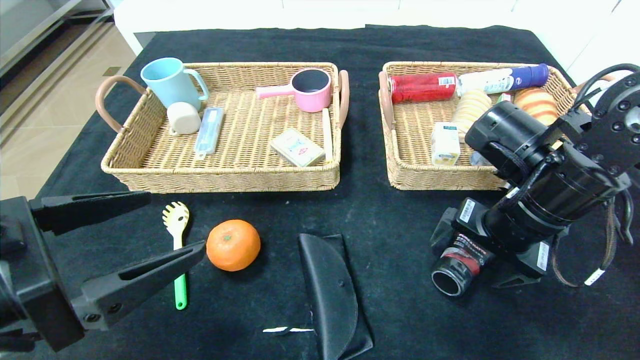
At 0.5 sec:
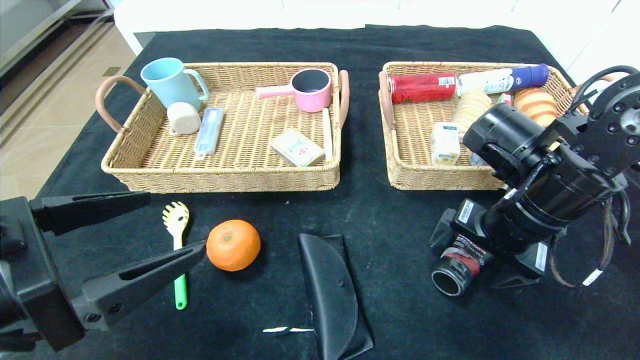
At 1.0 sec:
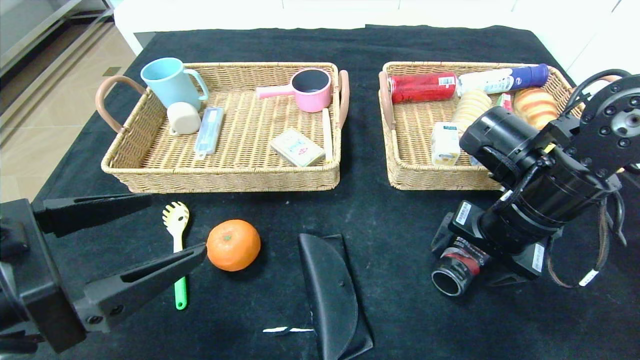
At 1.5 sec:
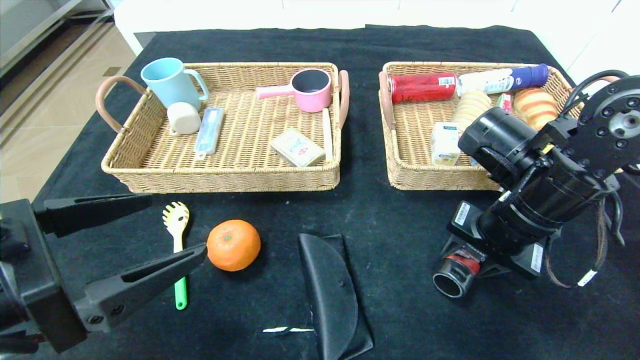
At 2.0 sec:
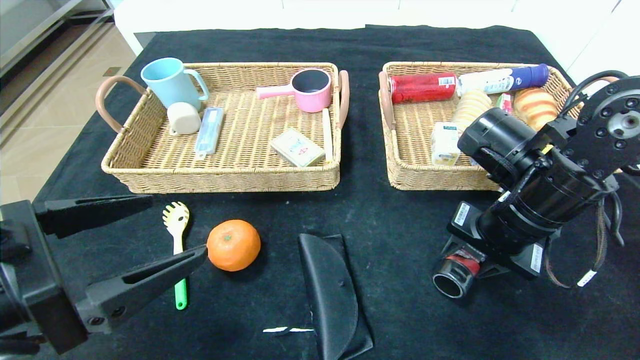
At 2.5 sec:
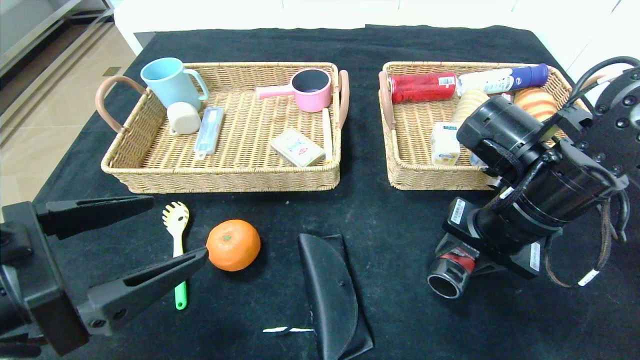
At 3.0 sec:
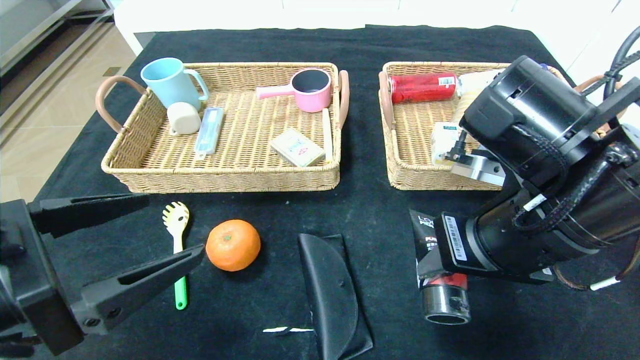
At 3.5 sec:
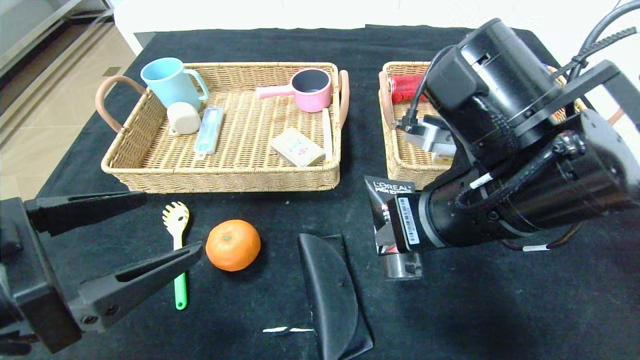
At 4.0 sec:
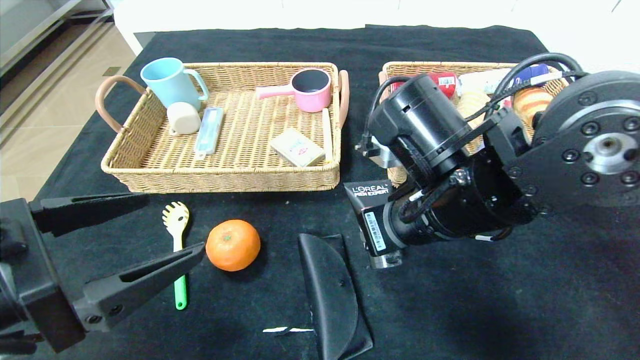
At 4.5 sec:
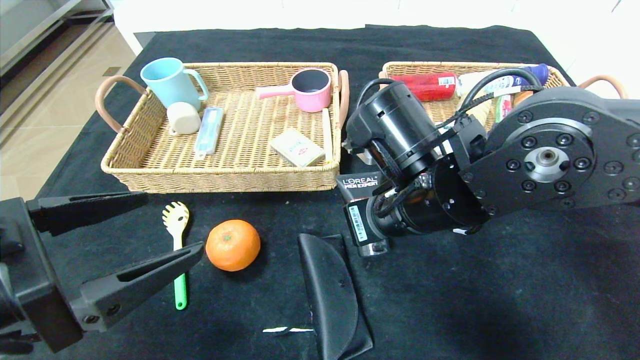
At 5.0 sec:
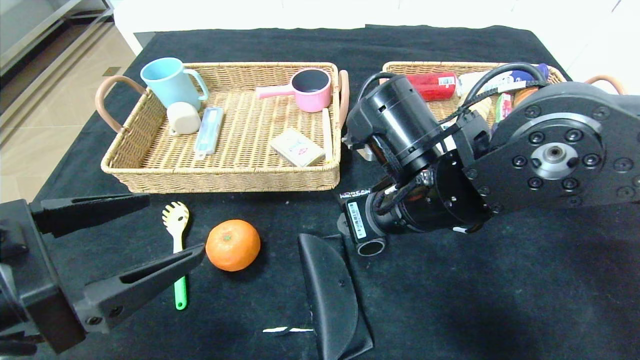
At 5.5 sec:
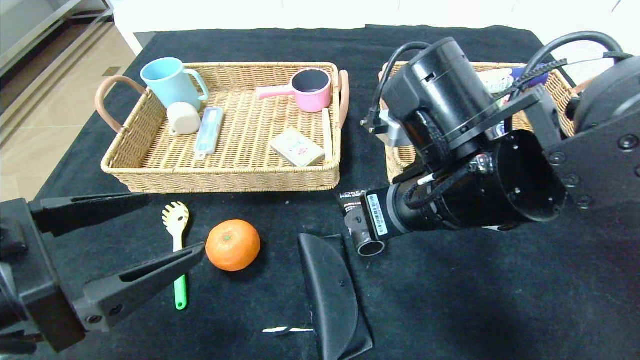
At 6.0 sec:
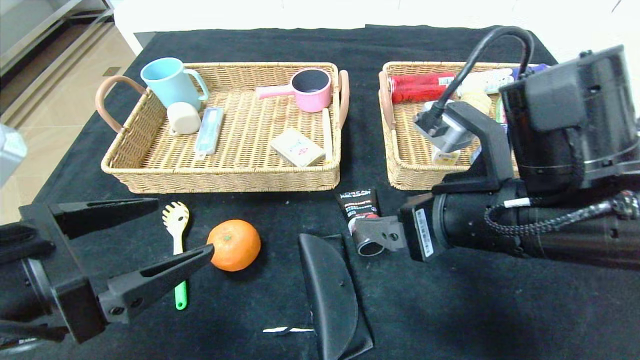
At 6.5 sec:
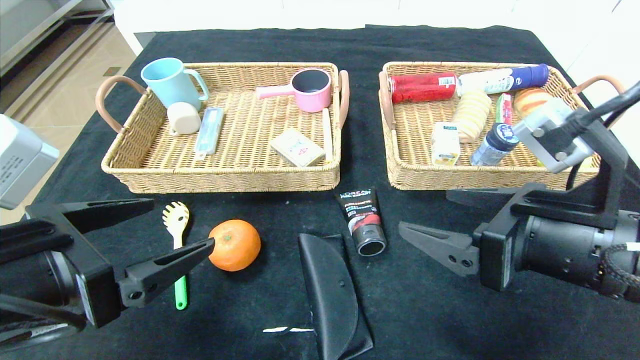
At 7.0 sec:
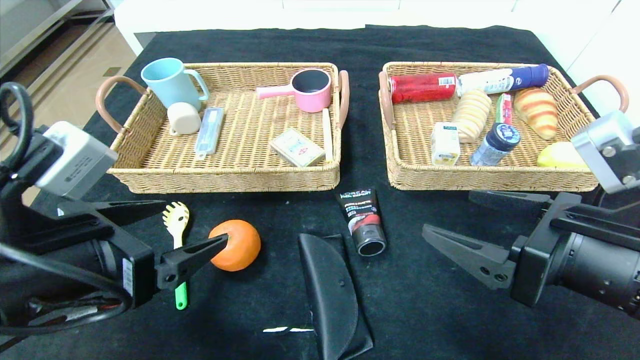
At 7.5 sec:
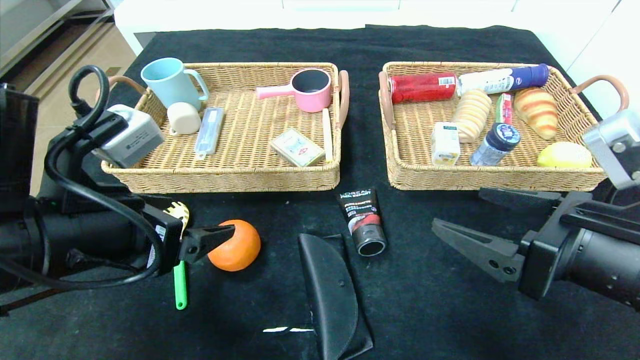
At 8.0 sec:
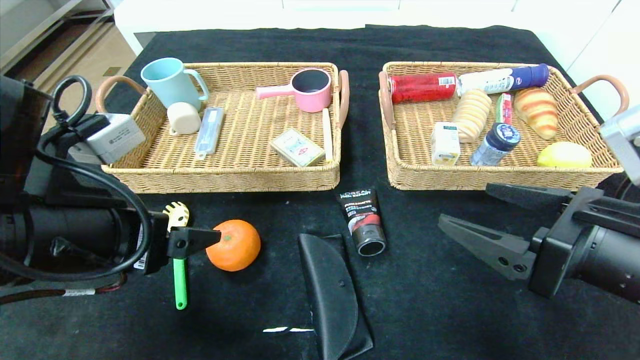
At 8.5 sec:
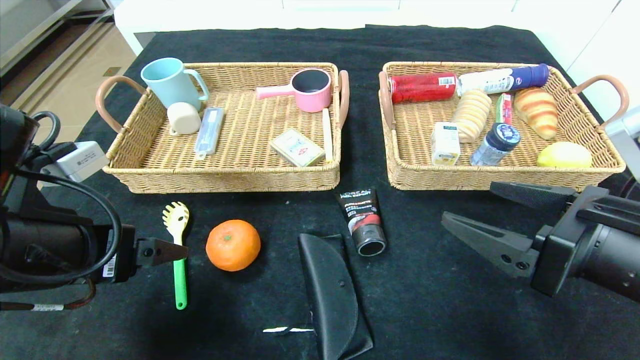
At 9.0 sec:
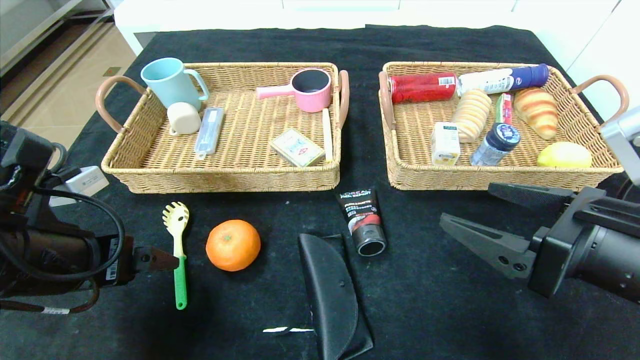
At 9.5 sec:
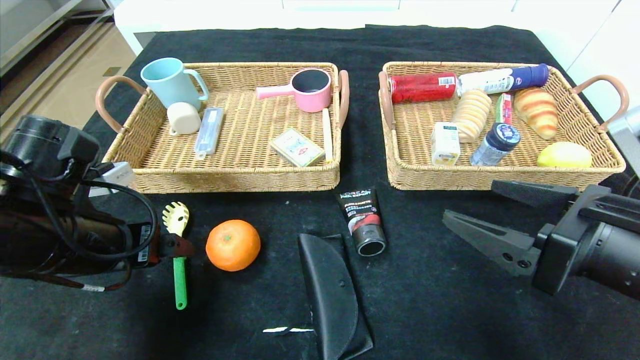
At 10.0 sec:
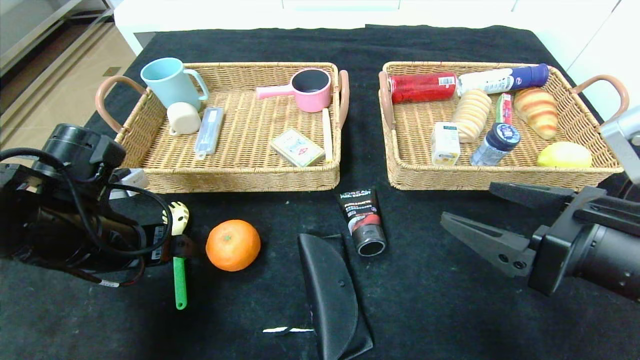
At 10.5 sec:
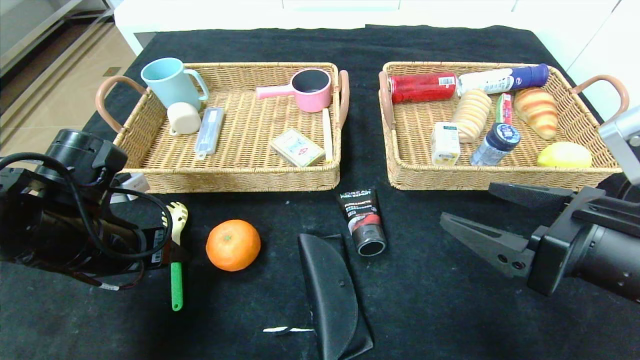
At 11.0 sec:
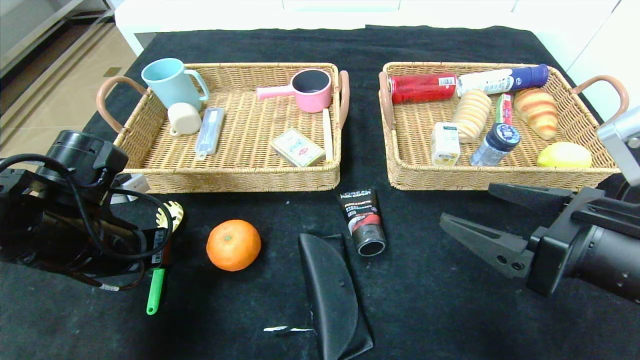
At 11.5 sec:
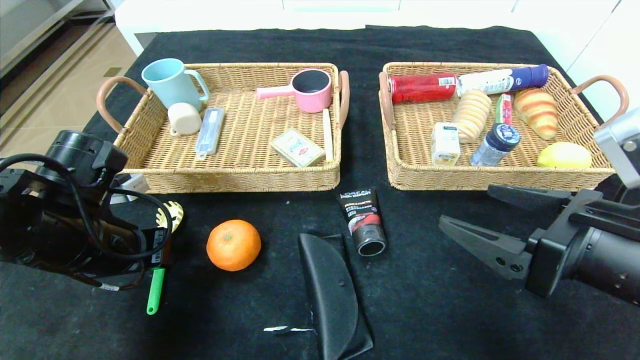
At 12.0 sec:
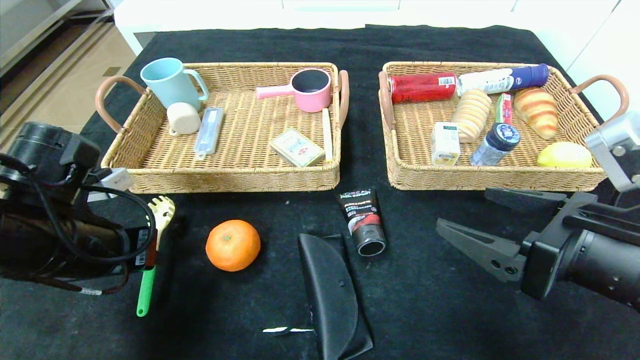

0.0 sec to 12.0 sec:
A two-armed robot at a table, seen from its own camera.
Step, 0.0 sec to 6.5 sec: Place the soft cleanser in the center of the table.
0.0 sec to 2.0 sec: The right gripper closes its fingers.
2.0 sec to 4.0 sec: The right gripper is displaced to the left by approximately 10 cm.
4.0 sec to 6.0 sec: The right gripper changes place by approximately 5 cm, and opens.
6.0 sec to 8.0 sec: The right gripper heads to the right, covering approximately 10 cm. Meanwhile the left gripper changes place by about 5 cm.
8.0 sec to 10.0 sec: The left gripper is displaced forward, downward and to the left by approximately 10 cm.
10.0 sec to 12.0 sec: The left gripper closes its fingers.

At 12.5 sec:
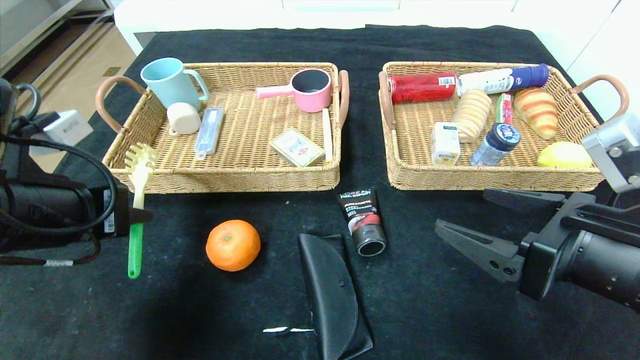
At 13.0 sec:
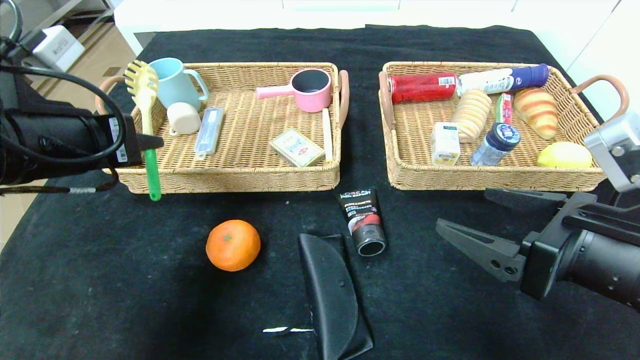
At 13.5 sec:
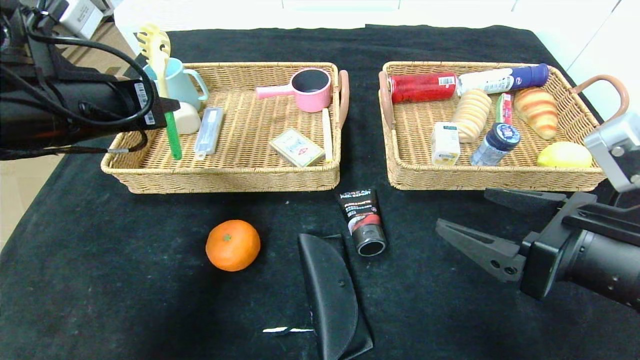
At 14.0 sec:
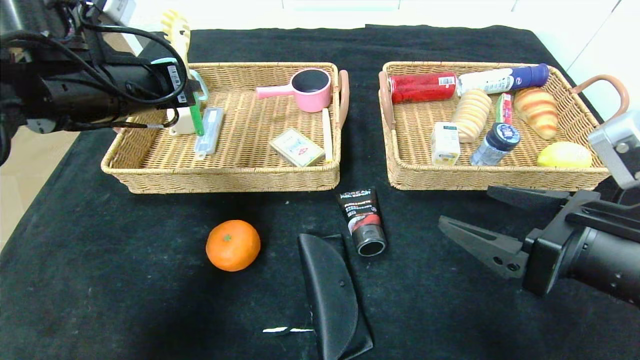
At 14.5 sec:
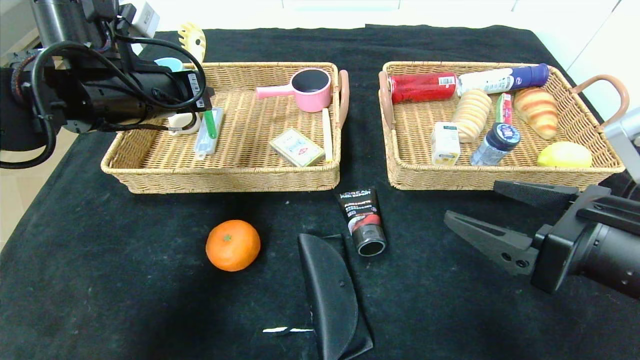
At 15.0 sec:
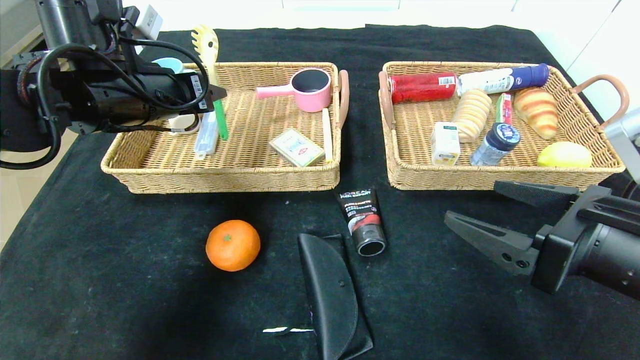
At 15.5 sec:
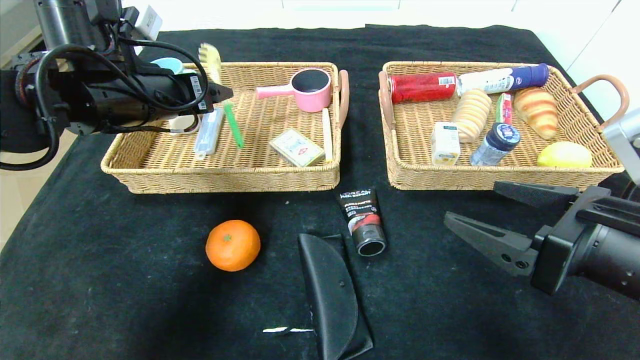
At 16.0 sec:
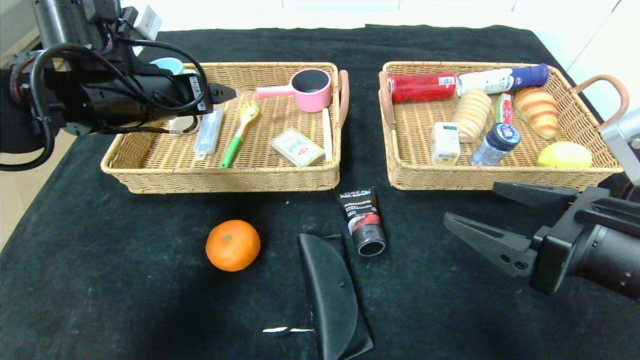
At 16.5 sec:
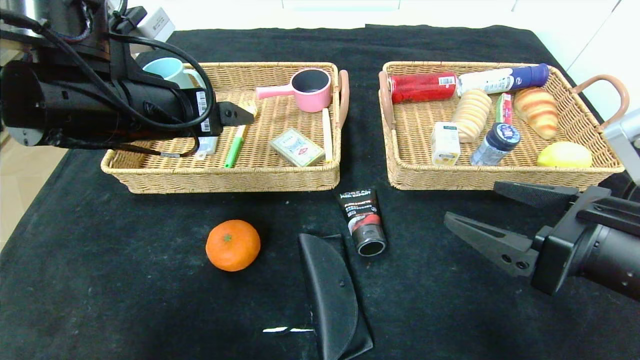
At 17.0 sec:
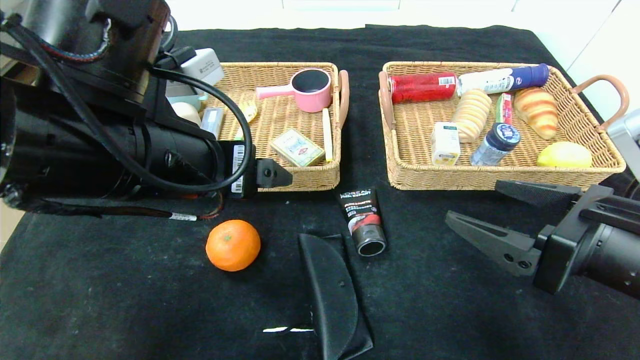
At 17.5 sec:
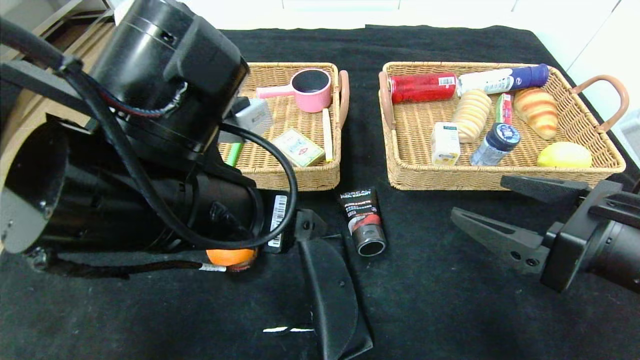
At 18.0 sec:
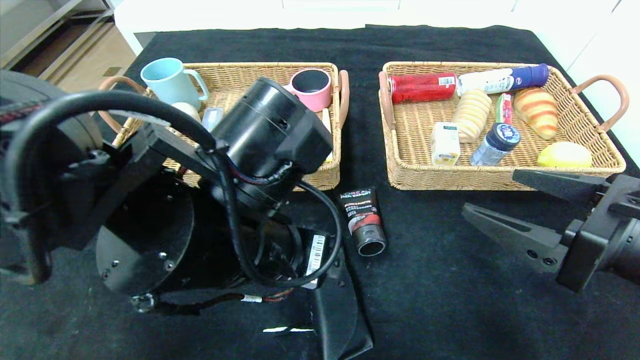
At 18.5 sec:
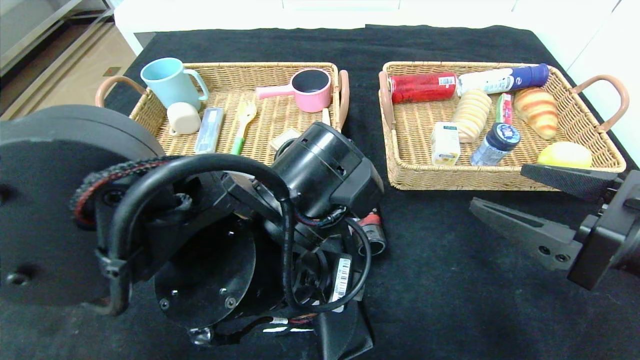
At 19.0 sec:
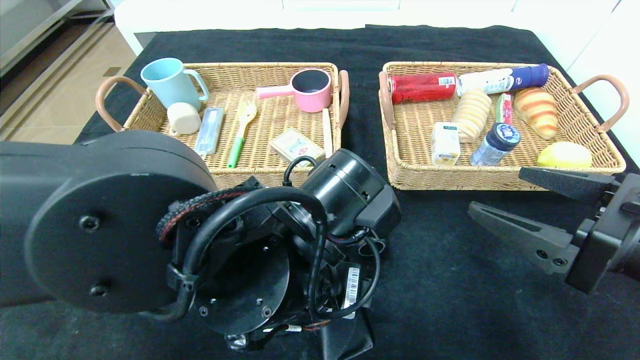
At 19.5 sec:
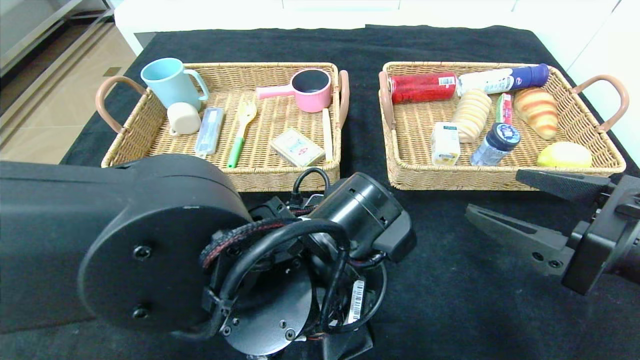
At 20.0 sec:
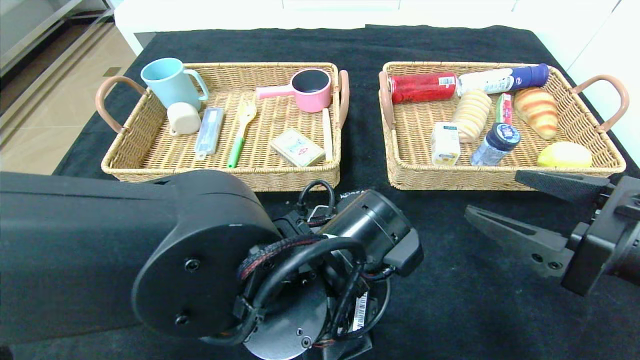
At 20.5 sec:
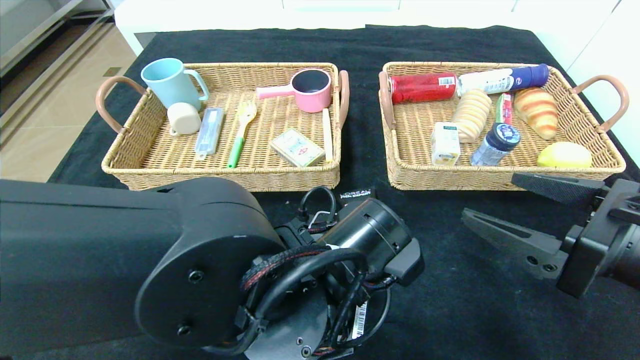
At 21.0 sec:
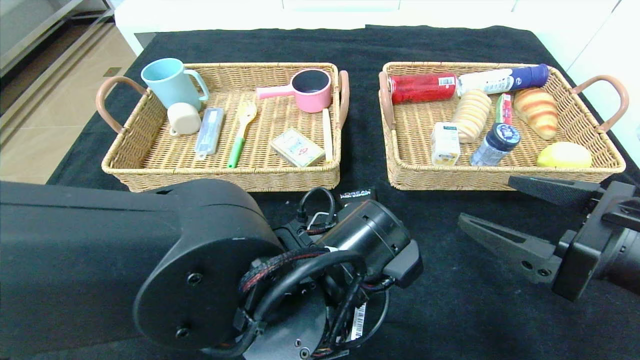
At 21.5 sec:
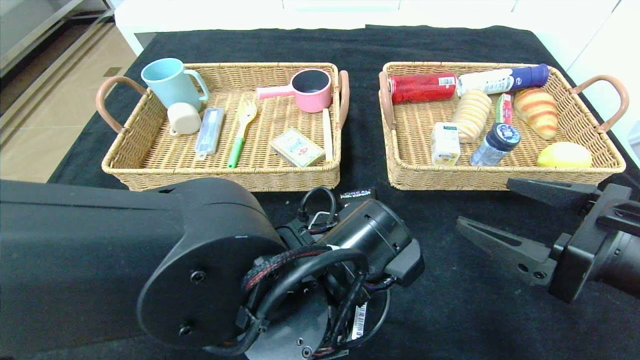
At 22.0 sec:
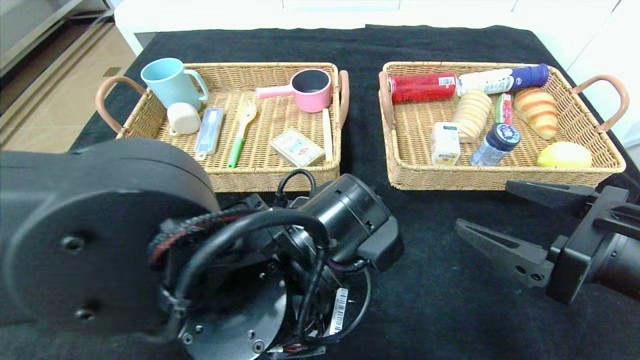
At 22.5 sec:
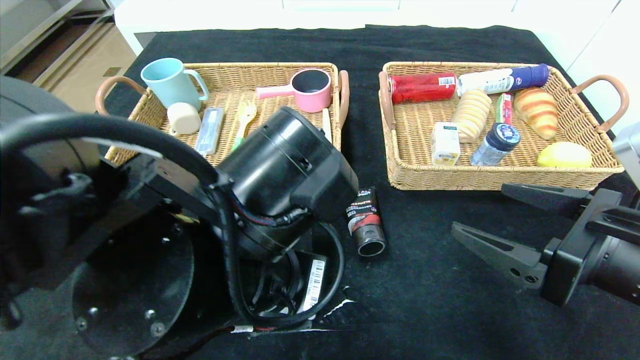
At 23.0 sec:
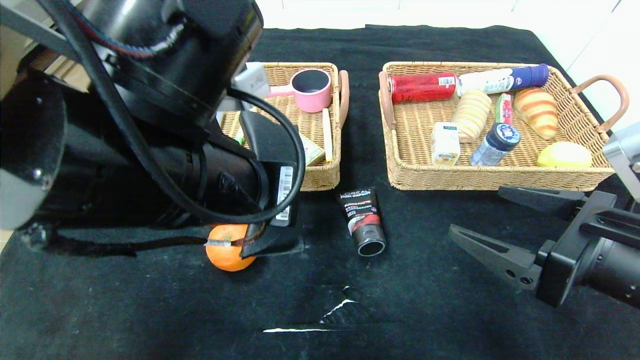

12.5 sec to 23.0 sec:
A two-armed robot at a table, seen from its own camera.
Step, 12.5 sec to 17.0 sec: Pick up the back scratcher and put it in the left basket.
12.5 sec to 14.5 sec: The left gripper is displaced forward by roughly 15 cm.
14.5 sec to 16.5 sec: The left gripper moves backward, approximately 5 cm, and opens its fingers.
16.5 sec to 19.0 sec: The left gripper goes some 20 cm to the right, downward and backward.
19.0 sec to 21.0 sec: The left gripper closes up.
21.0 sec to 23.0 sec: The left gripper travels upward and to the left by roughly 15 cm.
